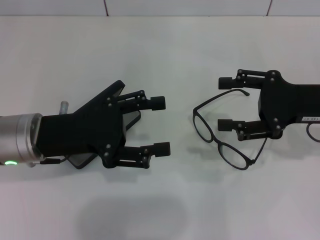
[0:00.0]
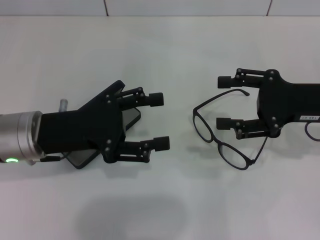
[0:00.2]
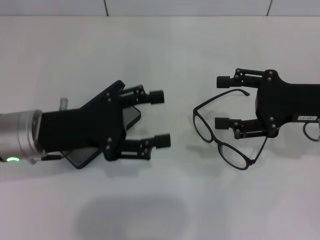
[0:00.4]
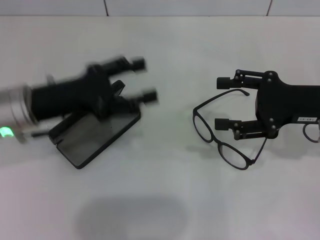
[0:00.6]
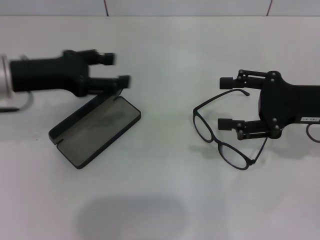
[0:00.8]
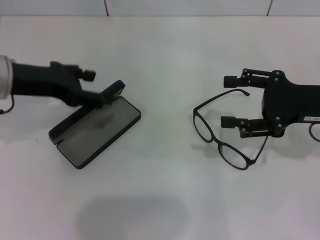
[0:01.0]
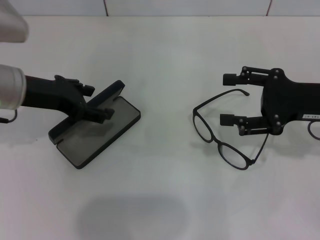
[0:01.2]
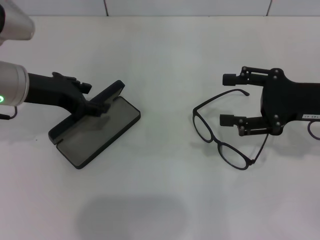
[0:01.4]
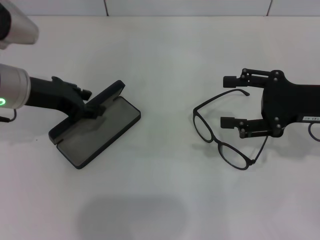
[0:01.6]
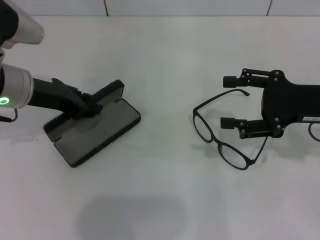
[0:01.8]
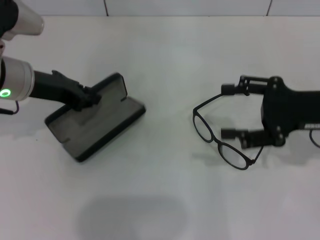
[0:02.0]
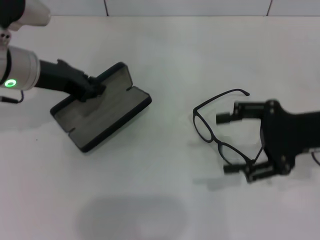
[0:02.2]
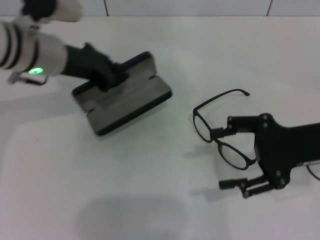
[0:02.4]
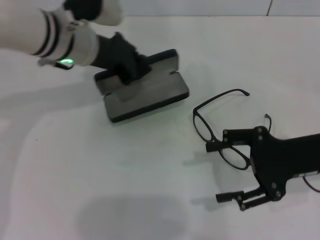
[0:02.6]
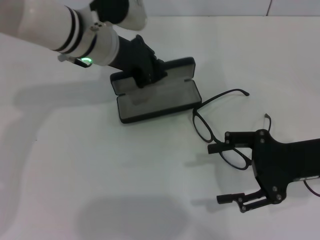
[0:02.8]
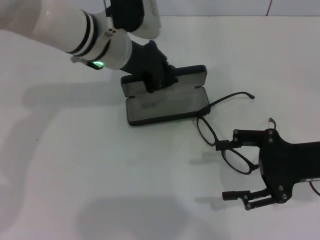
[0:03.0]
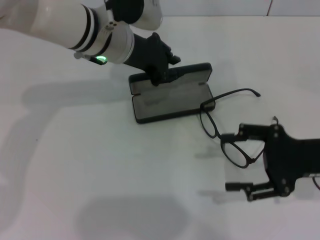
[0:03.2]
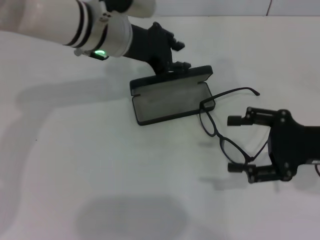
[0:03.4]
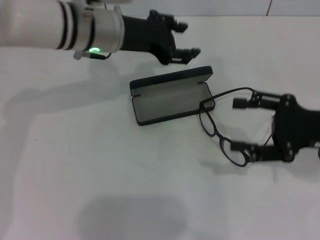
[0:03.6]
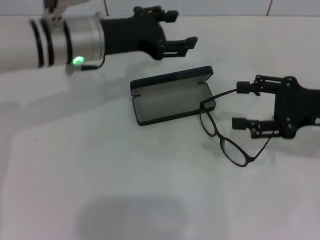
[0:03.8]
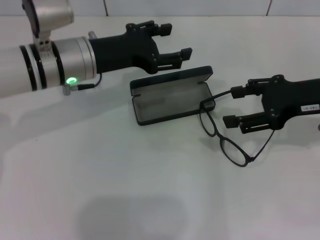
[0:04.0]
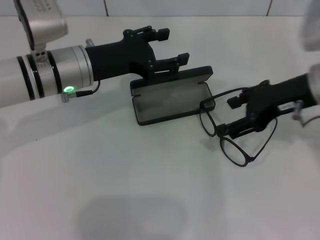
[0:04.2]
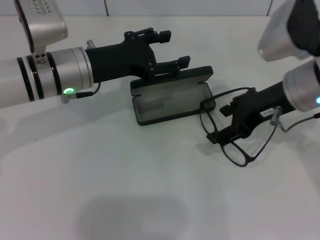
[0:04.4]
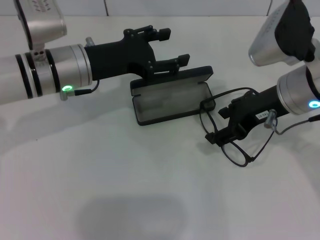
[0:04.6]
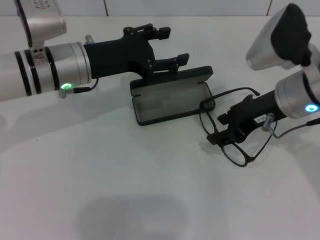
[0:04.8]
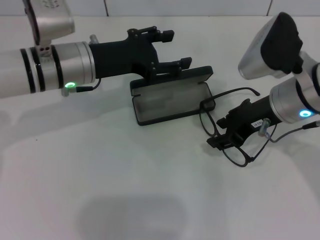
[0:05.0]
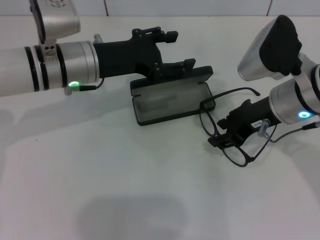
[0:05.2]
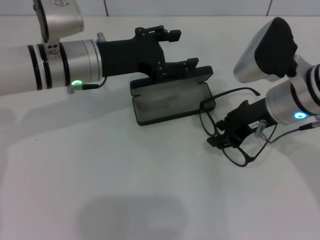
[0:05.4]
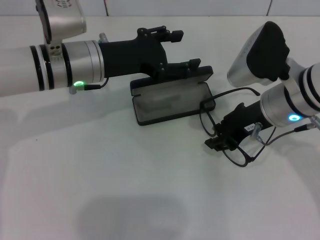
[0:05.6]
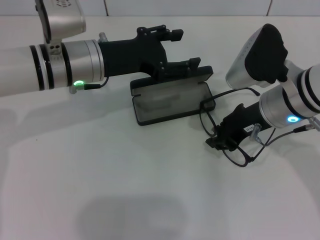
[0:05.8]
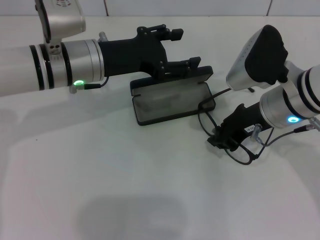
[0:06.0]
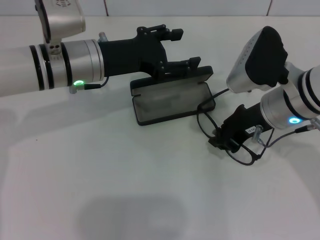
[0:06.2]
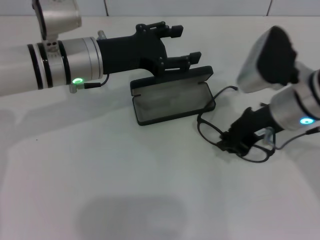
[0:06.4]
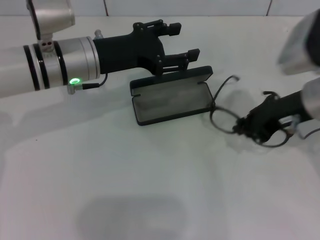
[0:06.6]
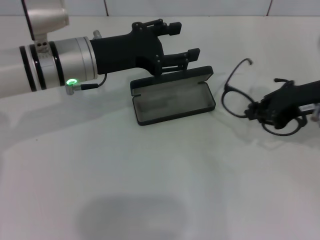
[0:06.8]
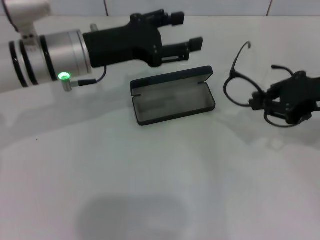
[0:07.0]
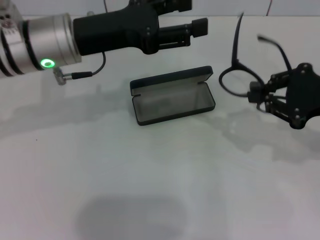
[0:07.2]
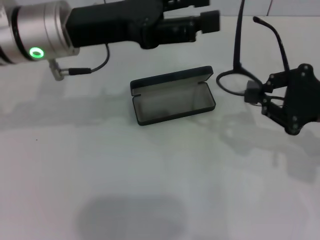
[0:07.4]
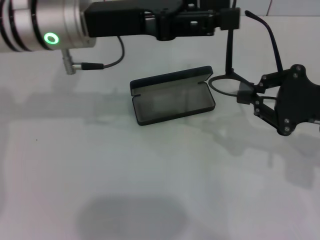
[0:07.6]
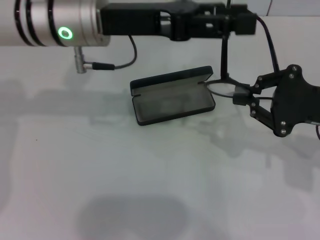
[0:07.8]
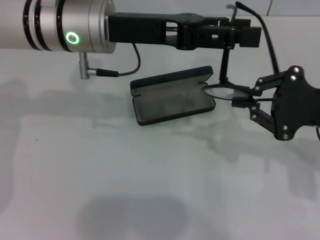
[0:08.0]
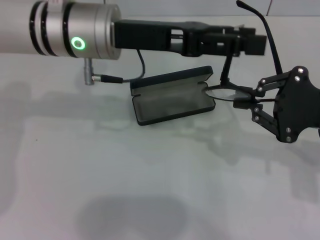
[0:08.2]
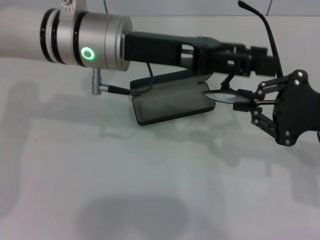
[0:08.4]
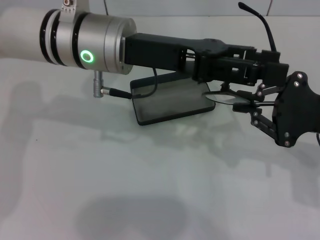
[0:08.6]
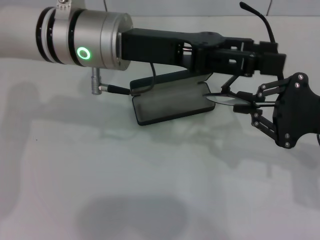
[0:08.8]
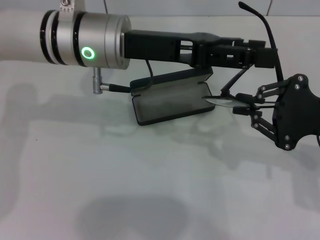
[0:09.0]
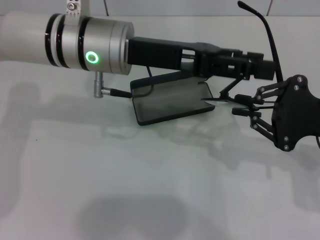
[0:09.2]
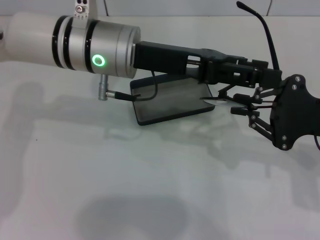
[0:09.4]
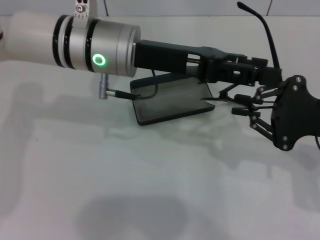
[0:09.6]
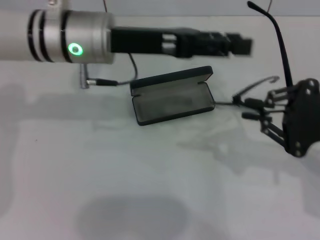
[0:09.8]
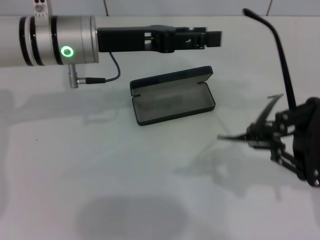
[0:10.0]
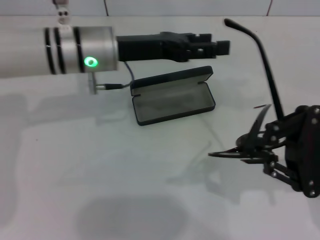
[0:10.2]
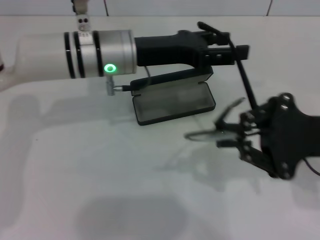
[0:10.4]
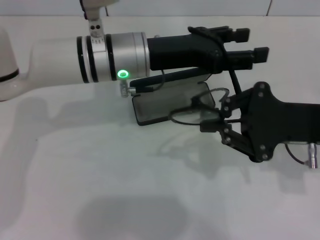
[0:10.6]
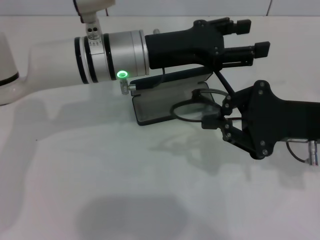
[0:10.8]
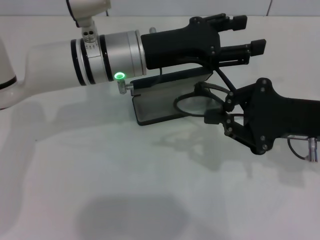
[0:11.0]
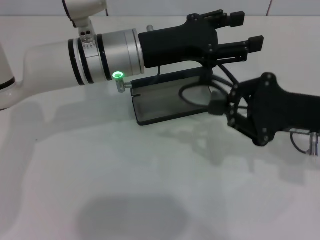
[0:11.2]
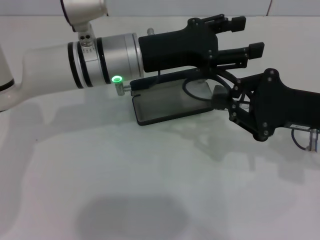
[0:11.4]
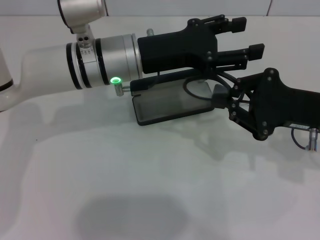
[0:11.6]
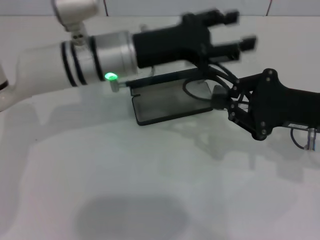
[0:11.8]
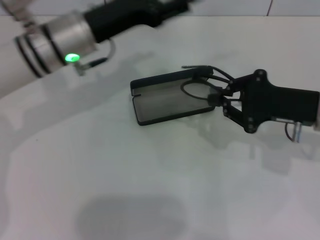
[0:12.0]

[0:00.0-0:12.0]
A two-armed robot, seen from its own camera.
Step, 0:00.0 to 0:01.8: Grab the glasses case with your left hand.
Step, 0:02.0 to 0:03.6: Place the glasses case in the center of the table with your left hand.
Step, 0:03.8 to 0:06.2: Grab the eyeglass frame with your right hand.
Step, 0:06.6 to 0:11.6: Fold the frame with your left hand.
0:00.0 to 0:01.6: The left gripper shifts some 5 cm forward.
0:01.6 to 0:03.0: The left gripper goes approximately 15 cm to the right and forward, and closes up. The right gripper shifts by approximately 5 cm.
0:03.0 to 0:04.4: The left gripper moves to the left and backward, some 10 cm, and opens, while the right gripper travels to the left, upward and forward by about 15 cm.
0:04.4 to 0:06.0: The right gripper shifts by some 5 cm, and closes its fingers.
0:06.0 to 0:07.6: The right gripper moves to the right, roughly 10 cm; the left gripper shifts about 5 cm upward.
0:10.4 to 0:12.0: The left gripper travels to the left by roughly 5 cm; the right gripper shifts by approximately 5 cm.

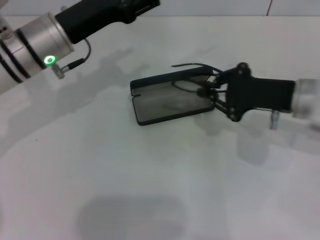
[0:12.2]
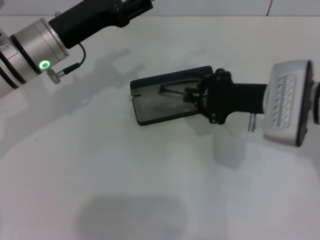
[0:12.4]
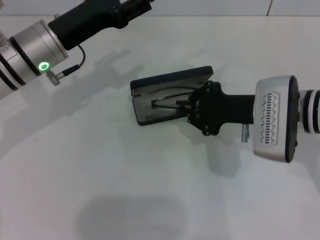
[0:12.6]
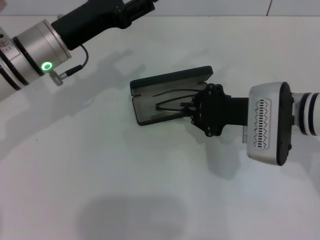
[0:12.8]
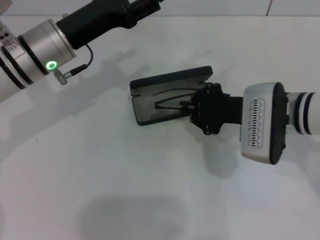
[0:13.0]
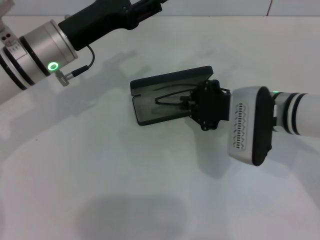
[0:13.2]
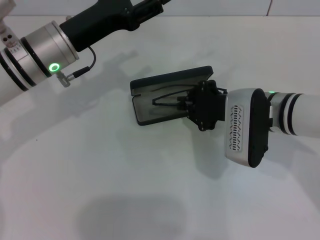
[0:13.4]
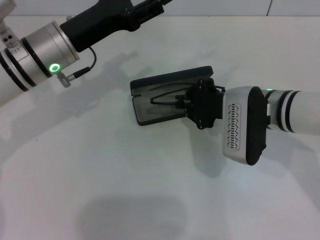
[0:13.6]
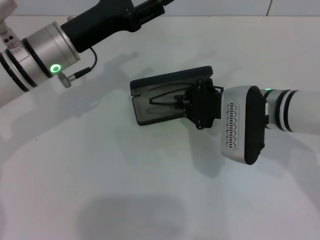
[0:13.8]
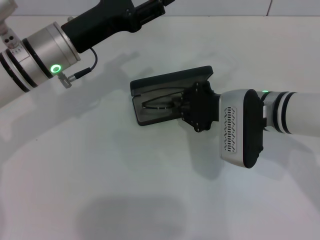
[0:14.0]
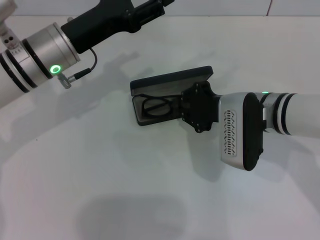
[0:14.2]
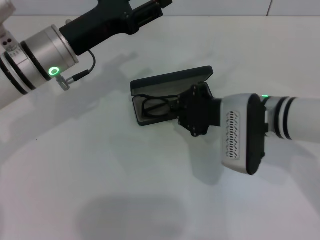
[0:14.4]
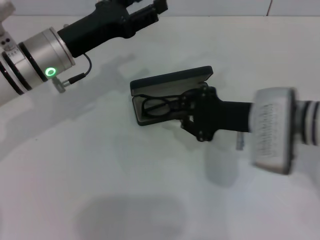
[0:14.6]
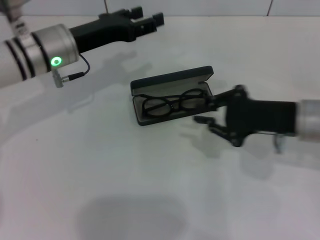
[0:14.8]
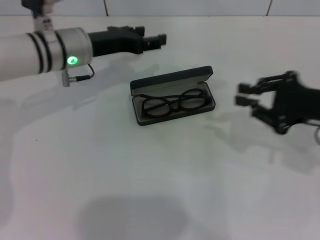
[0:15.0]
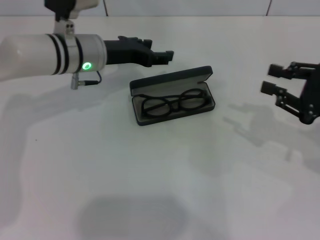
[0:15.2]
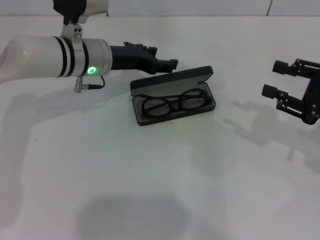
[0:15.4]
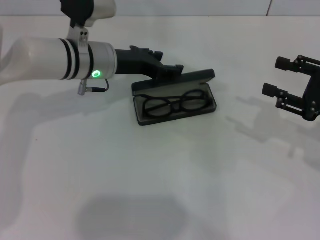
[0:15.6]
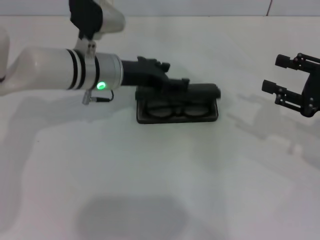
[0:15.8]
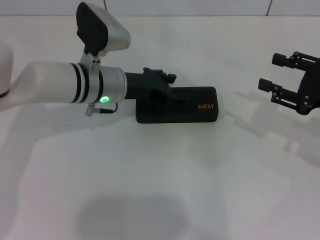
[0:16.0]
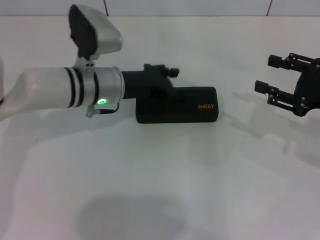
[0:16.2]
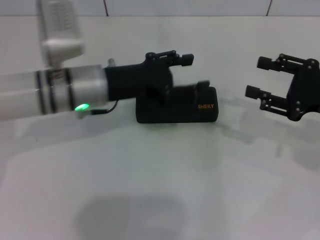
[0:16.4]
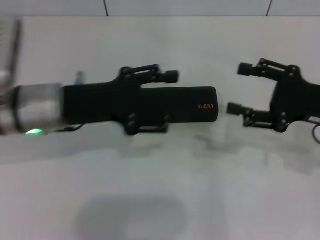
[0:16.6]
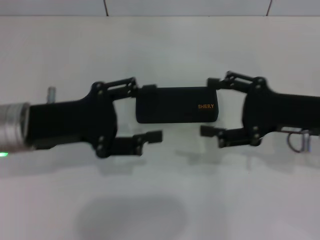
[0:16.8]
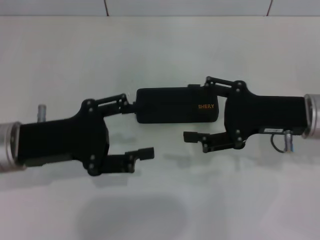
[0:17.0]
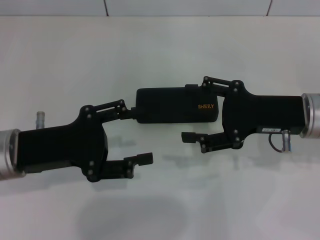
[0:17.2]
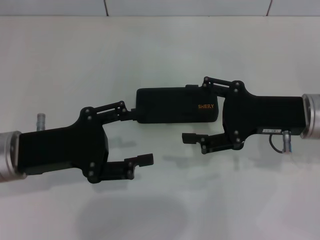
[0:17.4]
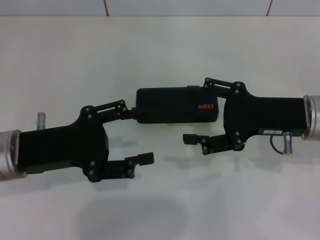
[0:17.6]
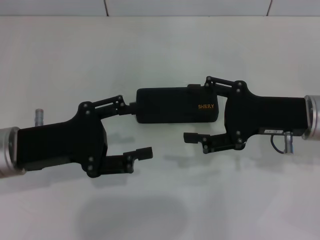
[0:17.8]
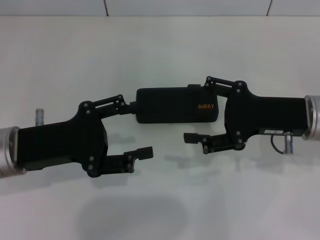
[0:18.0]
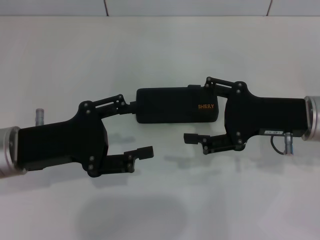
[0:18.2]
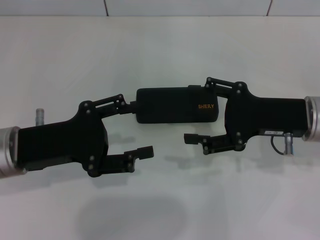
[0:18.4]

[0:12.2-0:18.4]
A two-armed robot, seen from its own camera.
Step, 0:12.2 to 0:14.4: Put the glasses into the case with your right hand.
Step, 0:14.6 to 0:16.0: Close the glasses case with your left hand.
0:12.2 to 0:13.8: The right gripper moves to the left, approximately 10 cm.
0:13.8 to 0:15.4: The left gripper ends up some 5 cm from where it was, while the right gripper shifts roughly 20 cm to the right.
0:15.4 to 0:16.8: The right gripper is displaced to the left by some 5 cm, and opens its fingers, while the left gripper travels backward and to the left by approximately 15 cm.
0:16.8 to 0:18.4: There are only small adjustments of the grippers.
